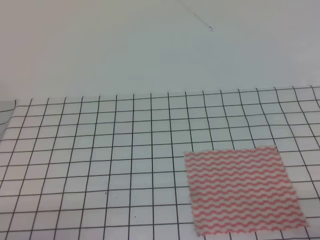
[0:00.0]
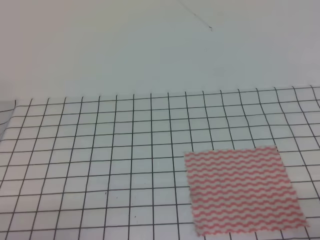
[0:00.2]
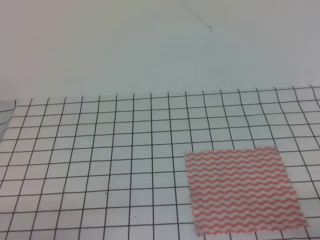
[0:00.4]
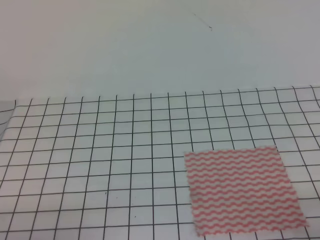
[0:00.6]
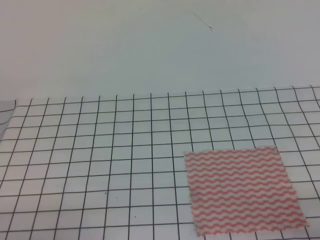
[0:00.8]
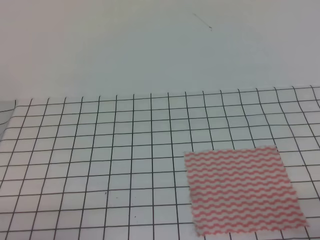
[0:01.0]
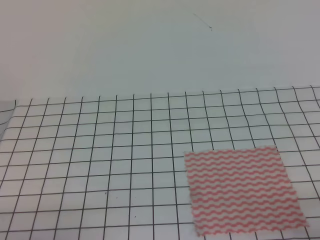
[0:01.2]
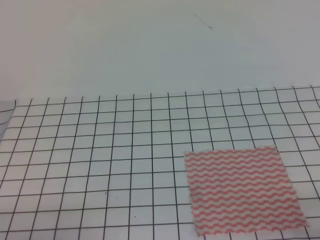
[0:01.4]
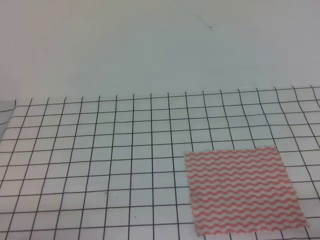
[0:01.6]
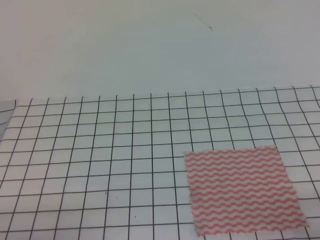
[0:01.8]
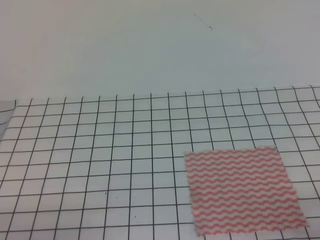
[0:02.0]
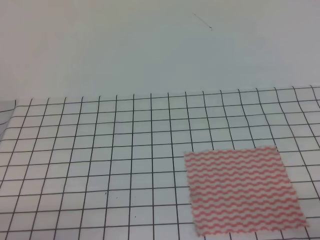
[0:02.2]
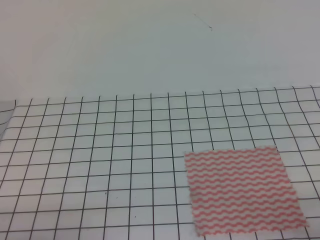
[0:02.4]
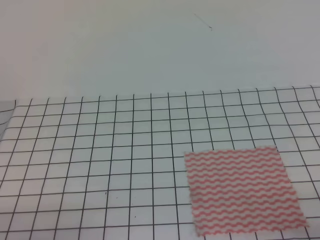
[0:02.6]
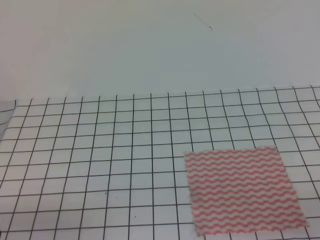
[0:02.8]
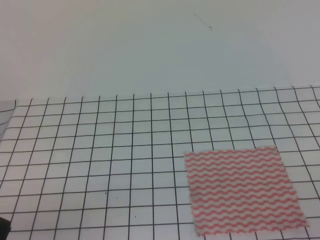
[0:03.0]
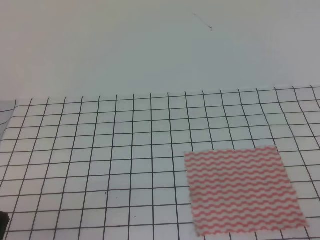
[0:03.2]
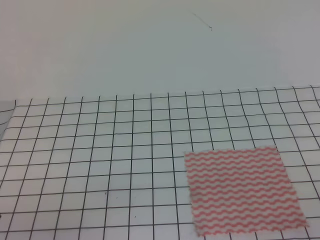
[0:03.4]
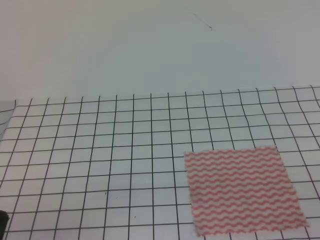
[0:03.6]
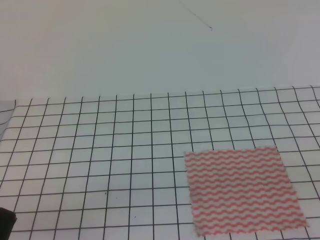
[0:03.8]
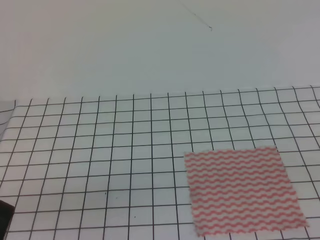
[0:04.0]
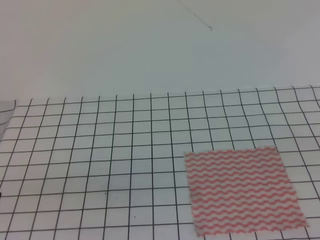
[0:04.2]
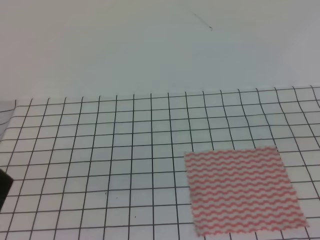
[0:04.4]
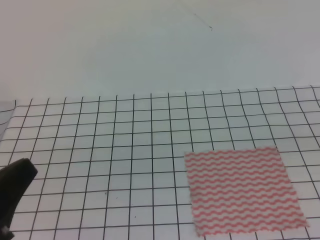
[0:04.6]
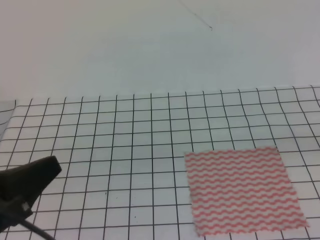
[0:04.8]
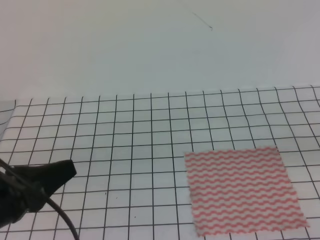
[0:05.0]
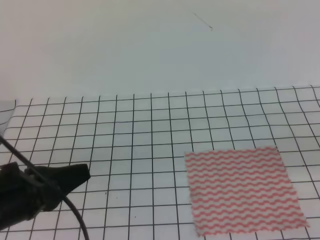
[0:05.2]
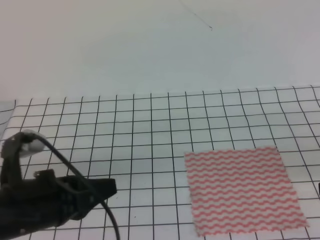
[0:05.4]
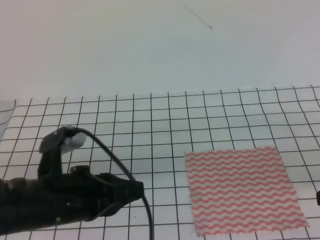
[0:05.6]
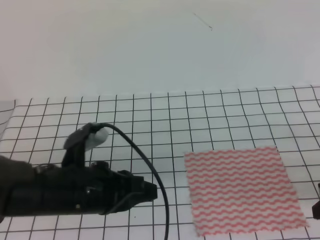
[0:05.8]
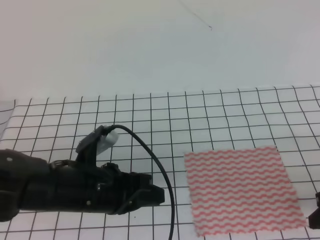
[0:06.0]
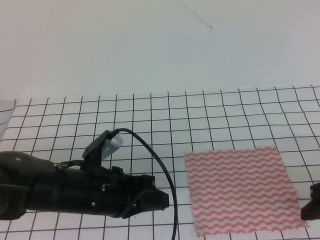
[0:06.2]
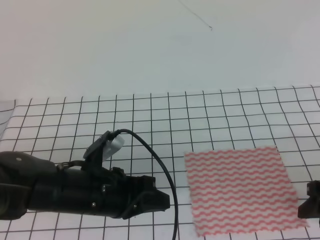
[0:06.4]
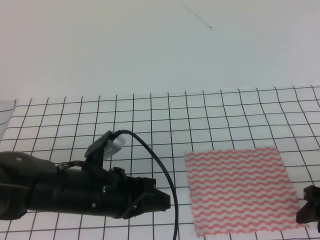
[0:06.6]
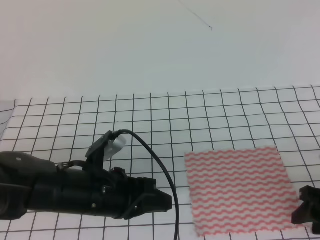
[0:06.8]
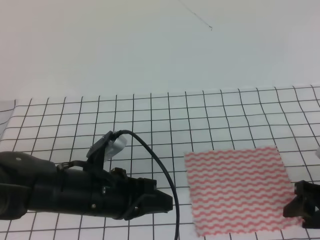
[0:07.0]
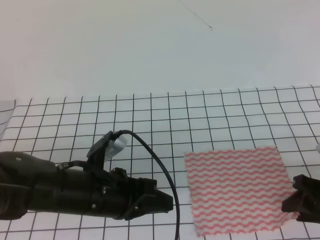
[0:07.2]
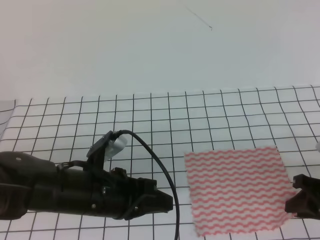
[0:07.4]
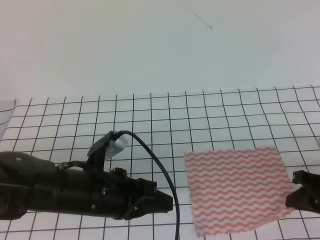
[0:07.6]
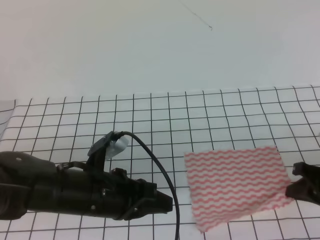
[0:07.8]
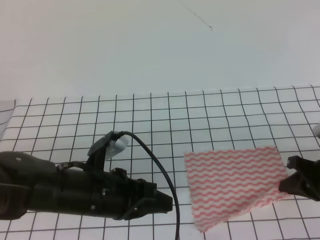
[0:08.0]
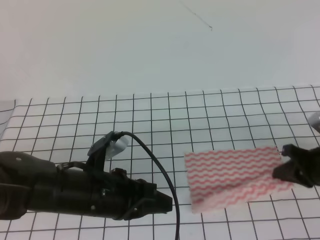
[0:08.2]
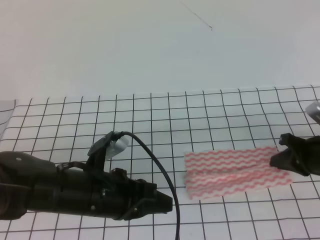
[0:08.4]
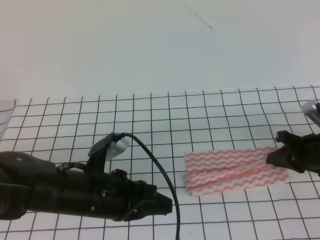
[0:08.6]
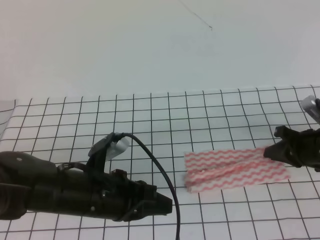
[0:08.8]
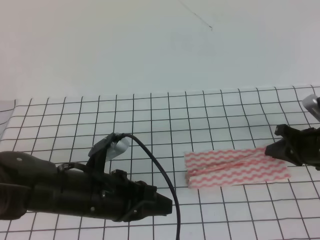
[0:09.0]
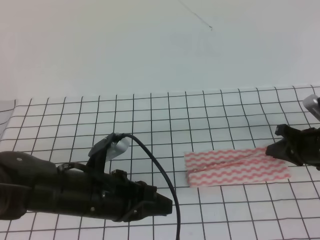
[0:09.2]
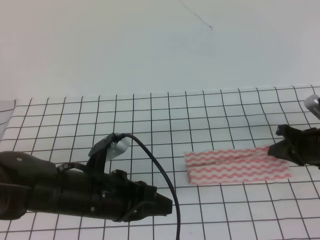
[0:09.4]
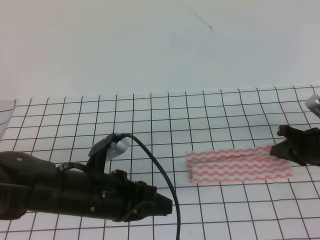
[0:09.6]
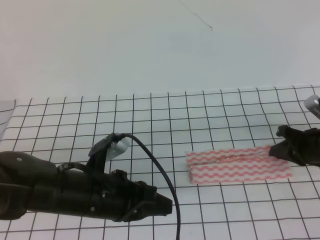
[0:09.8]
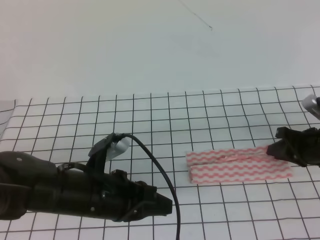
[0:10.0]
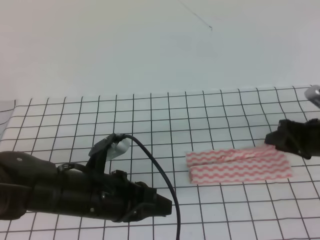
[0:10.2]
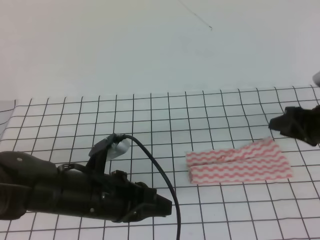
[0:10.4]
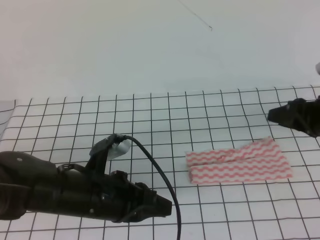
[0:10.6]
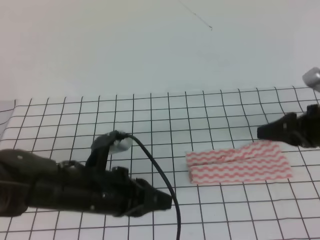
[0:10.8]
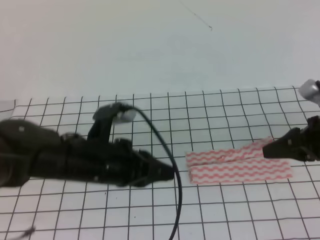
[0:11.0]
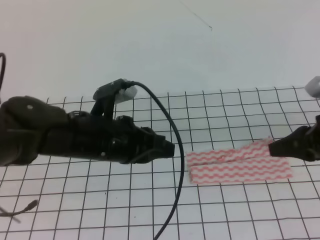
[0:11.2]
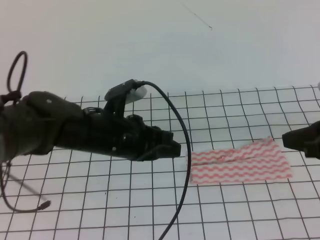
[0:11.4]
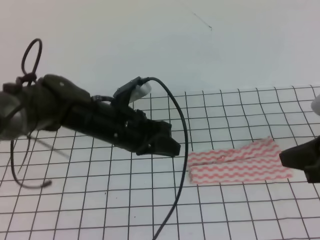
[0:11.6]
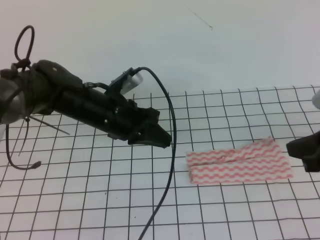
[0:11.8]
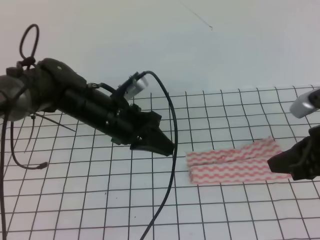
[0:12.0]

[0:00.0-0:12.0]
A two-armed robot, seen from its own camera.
0:00.0 to 0:01.6: Both grippers stay about where they are.
0:03.0 to 0:04.4: The left gripper moves upward, about 10 cm.
0:04.4 to 0:06.0: The right gripper heads downward and forward, covering some 20 cm, and opens, while the left gripper moves forward, to the right and downward, roughly 20 cm.
0:06.0 to 0:07.6: The right gripper moves downward, about 5 cm, and closes.
0:07.6 to 0:09.0: The right gripper goes roughly 10 cm forward.
0:09.0 to 0:10.4: The right gripper opens its fingers.
0:10.4 to 0:12.0: The left gripper moves forward, approximately 15 cm, while the right gripper heads backward and upward, covering some 15 cm, and closes its fingers.

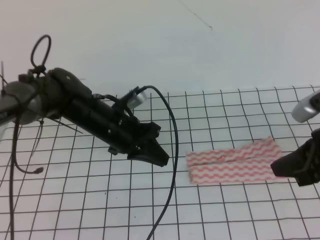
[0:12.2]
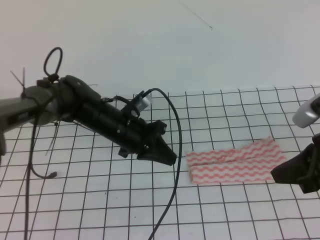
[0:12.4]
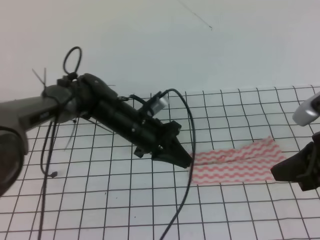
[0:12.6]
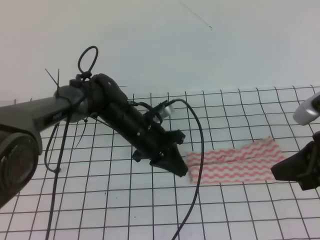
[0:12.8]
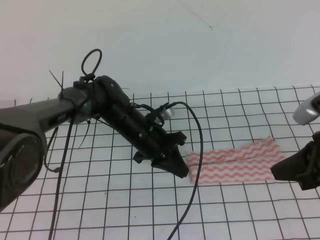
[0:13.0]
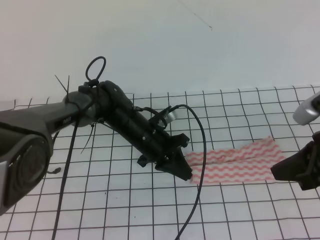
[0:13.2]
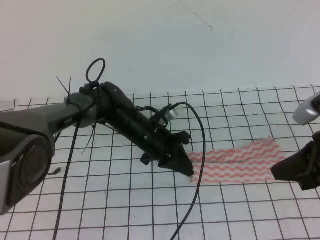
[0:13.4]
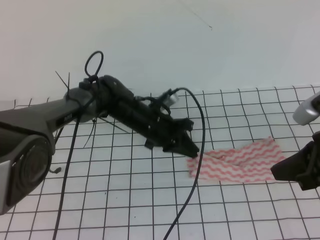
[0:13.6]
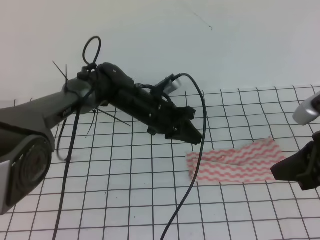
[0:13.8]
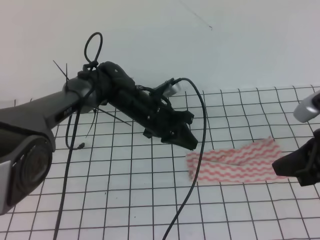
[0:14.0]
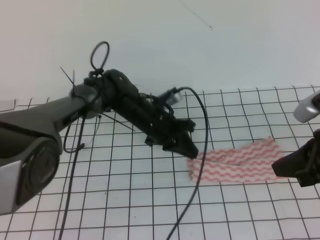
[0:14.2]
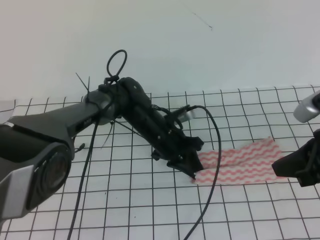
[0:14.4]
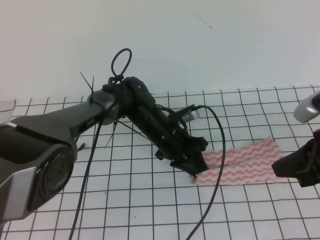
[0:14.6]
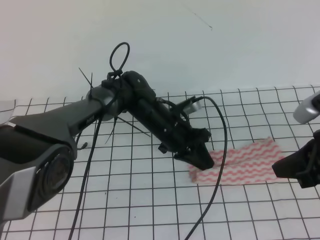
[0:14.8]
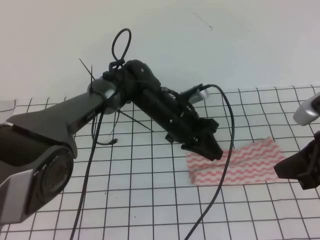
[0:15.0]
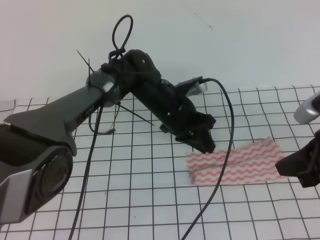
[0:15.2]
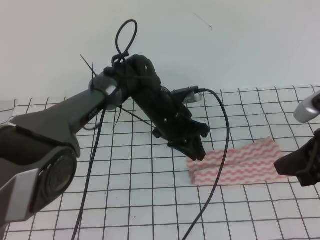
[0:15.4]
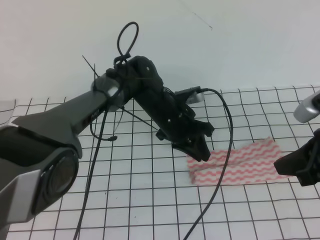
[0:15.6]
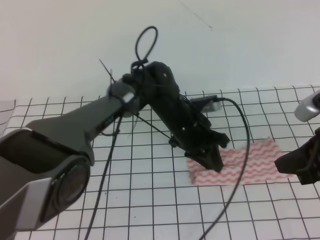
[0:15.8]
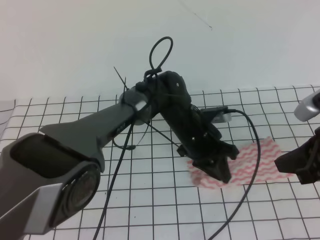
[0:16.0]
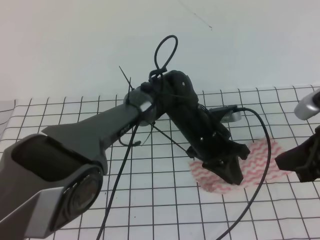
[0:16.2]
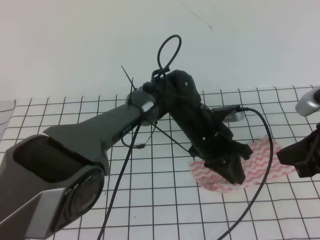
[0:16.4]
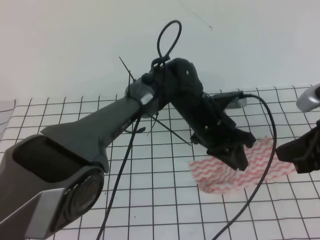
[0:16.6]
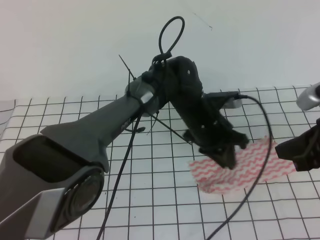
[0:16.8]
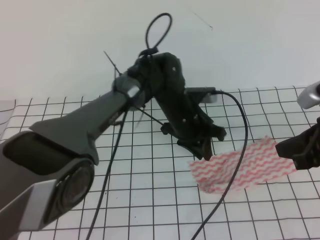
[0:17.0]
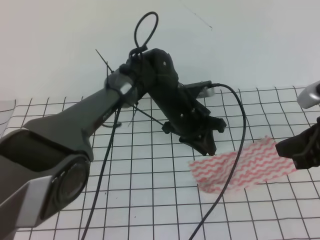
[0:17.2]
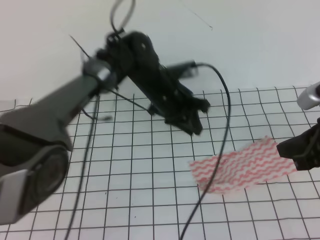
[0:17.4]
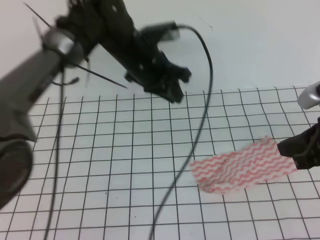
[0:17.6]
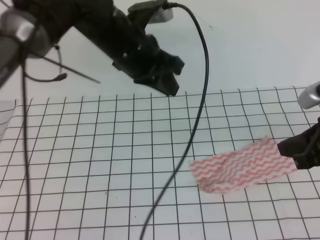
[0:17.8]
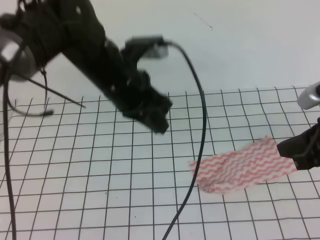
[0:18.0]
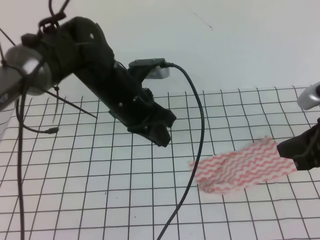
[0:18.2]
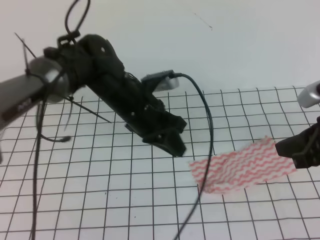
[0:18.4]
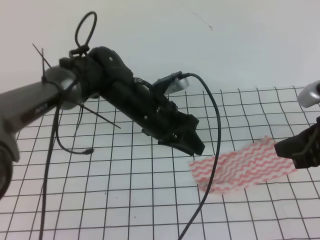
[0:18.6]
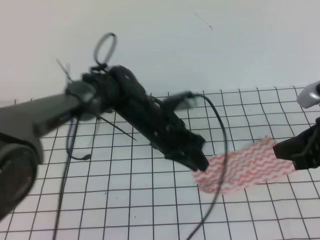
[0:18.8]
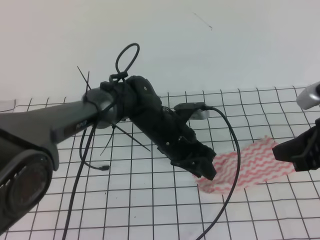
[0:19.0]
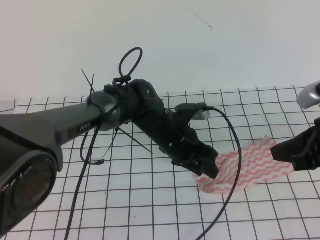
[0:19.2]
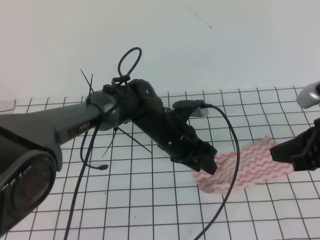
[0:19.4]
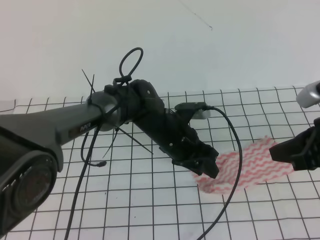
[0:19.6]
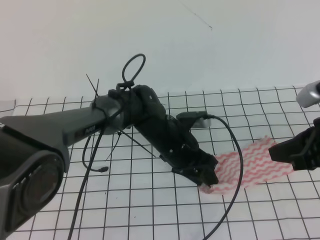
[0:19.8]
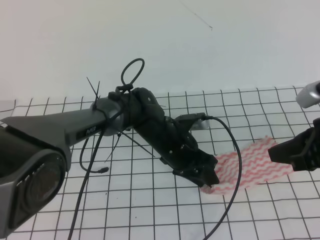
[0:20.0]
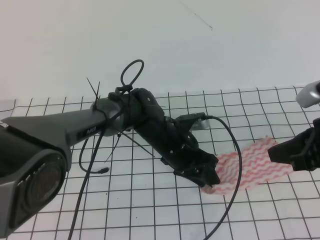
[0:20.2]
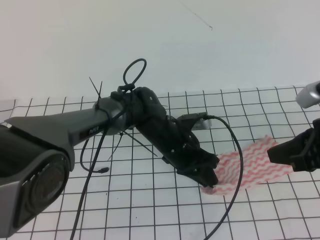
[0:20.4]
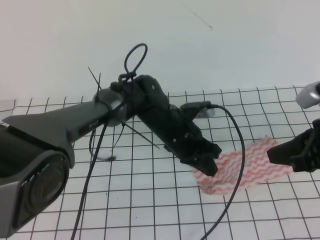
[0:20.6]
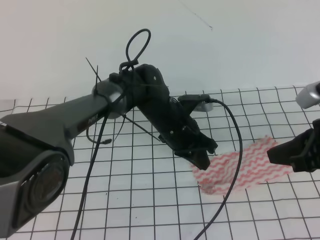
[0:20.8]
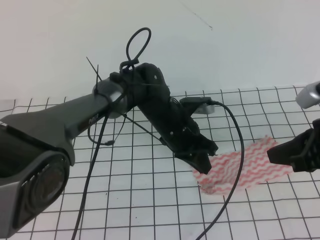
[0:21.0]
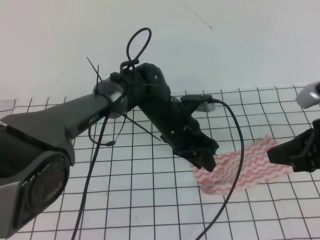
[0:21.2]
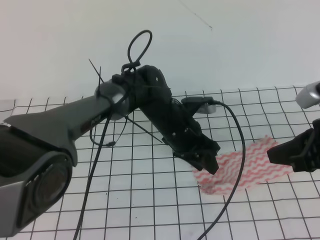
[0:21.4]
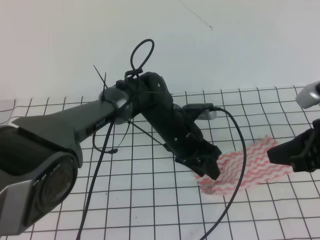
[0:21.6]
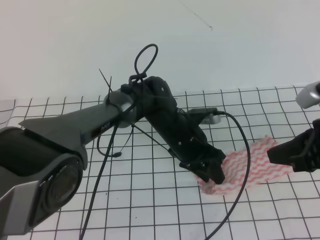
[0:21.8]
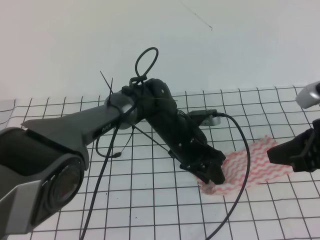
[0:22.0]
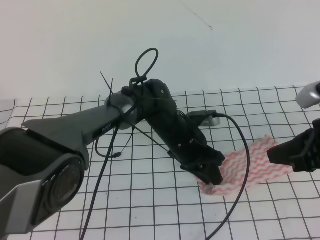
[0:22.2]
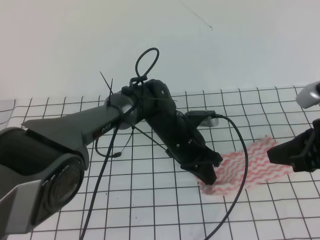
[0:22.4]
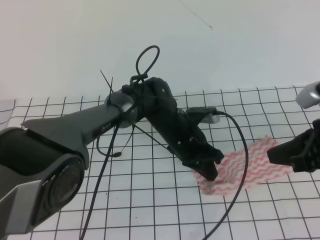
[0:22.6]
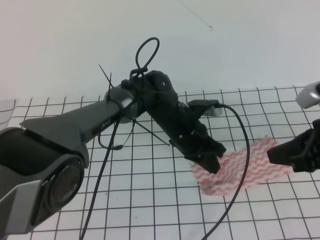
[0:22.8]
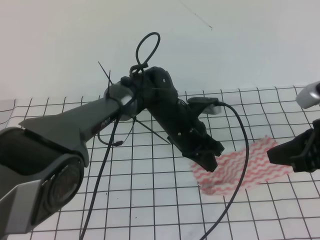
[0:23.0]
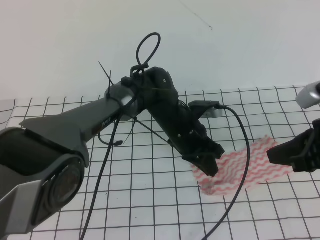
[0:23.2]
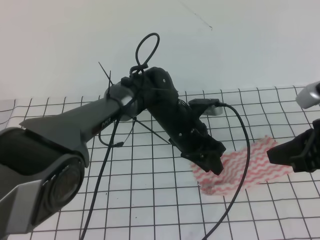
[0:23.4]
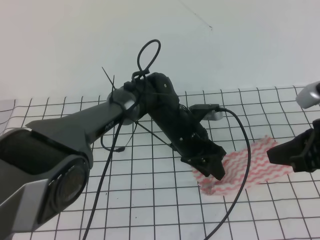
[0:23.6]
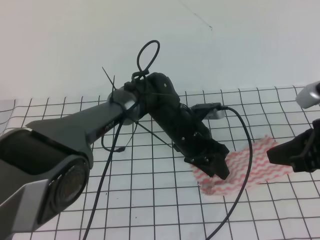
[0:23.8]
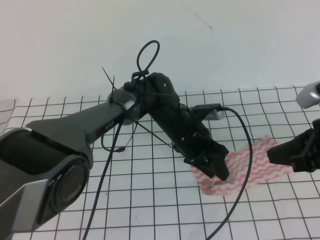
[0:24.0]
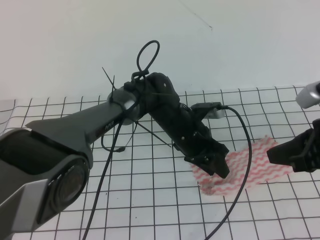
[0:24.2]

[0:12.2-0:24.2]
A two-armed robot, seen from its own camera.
0:12.2 to 0:13.8: The left gripper shifts some 10 cm to the right and forward.
0:13.8 to 0:15.2: The left gripper opens.
0:15.2 to 0:16.6: The left gripper travels to the right by roughly 5 cm.
0:16.6 to 0:18.2: The left gripper heads to the left and upward, covering approximately 15 cm.
0:18.2 to 0:19.8: The left gripper shifts about 15 cm downward and to the right, and opens its fingers.
0:19.8 to 0:21.2: The left gripper closes, then reopens.
0:21.2 to 0:22.6: The left gripper closes up.
0:22.6 to 0:24.2: The left gripper opens up.
